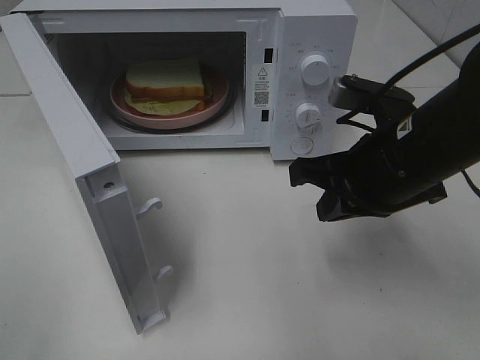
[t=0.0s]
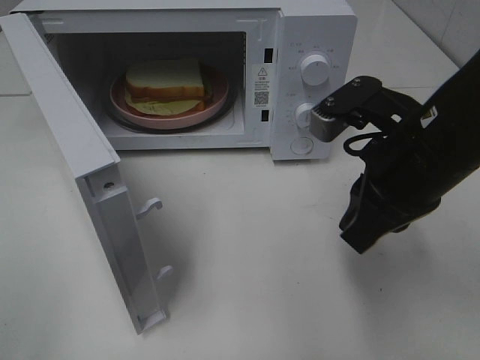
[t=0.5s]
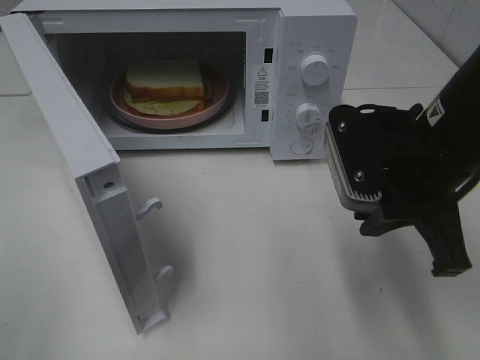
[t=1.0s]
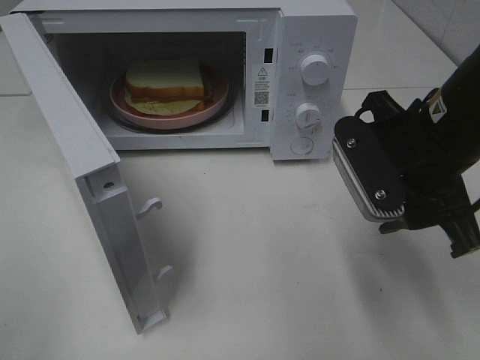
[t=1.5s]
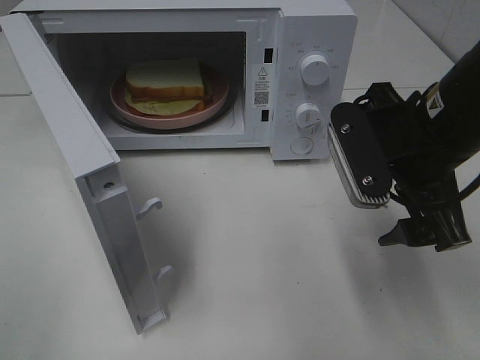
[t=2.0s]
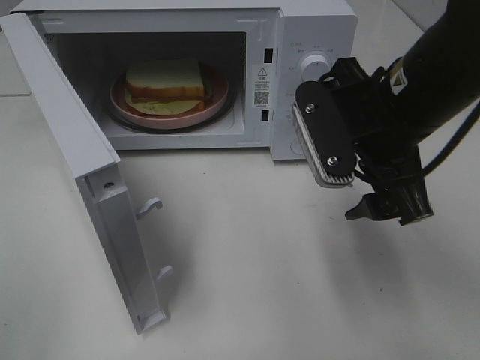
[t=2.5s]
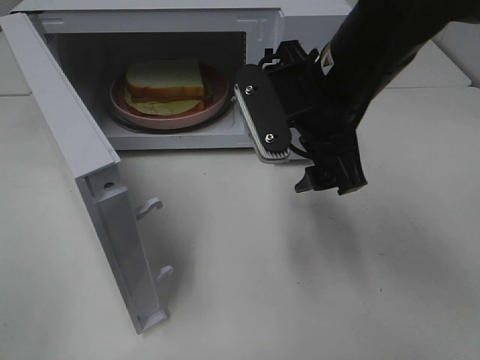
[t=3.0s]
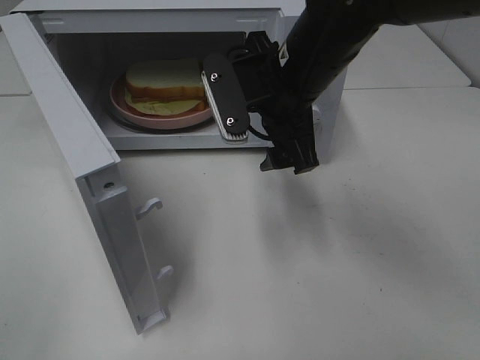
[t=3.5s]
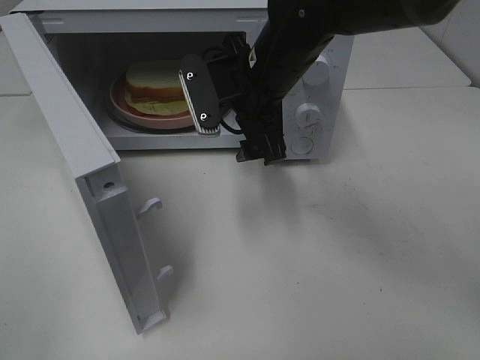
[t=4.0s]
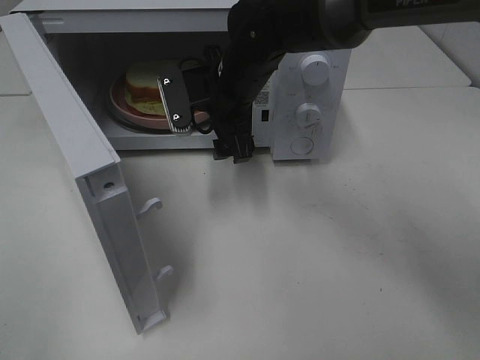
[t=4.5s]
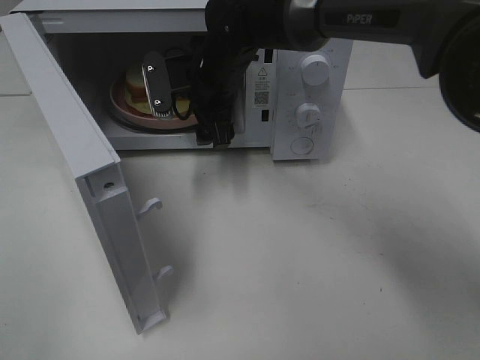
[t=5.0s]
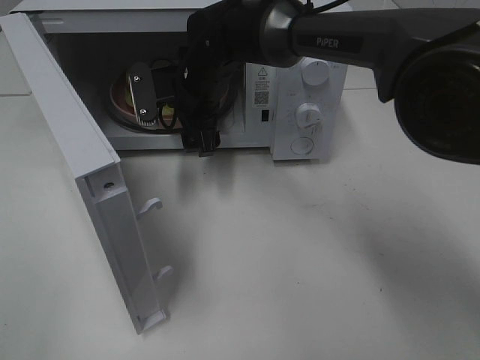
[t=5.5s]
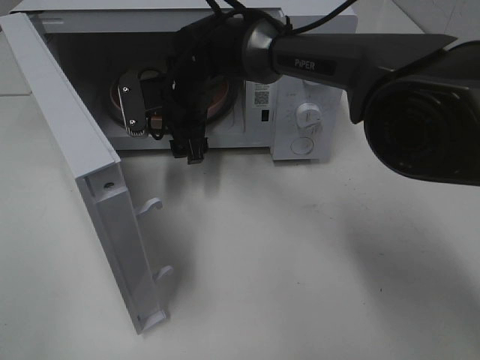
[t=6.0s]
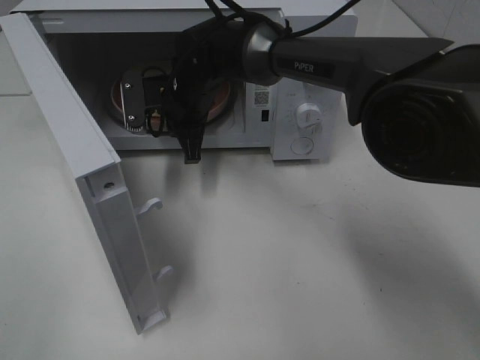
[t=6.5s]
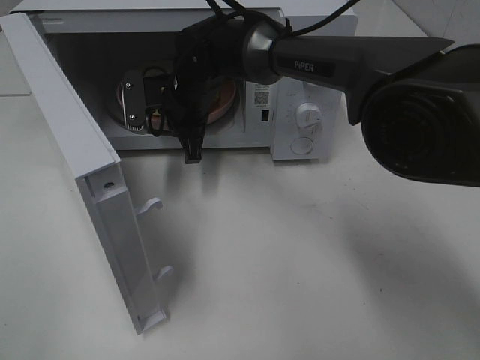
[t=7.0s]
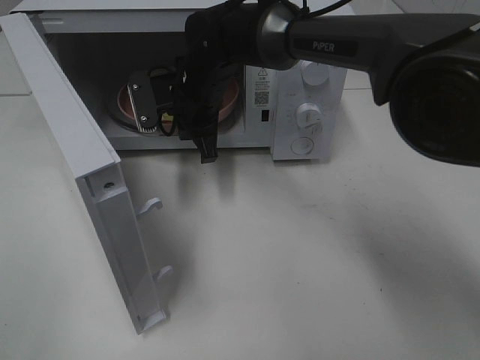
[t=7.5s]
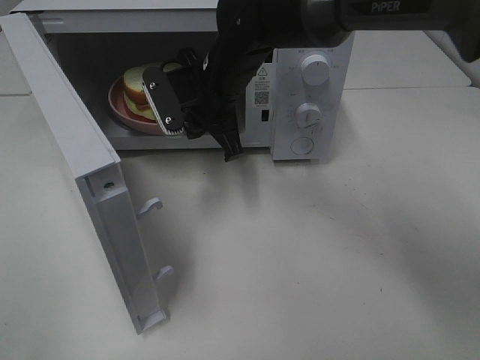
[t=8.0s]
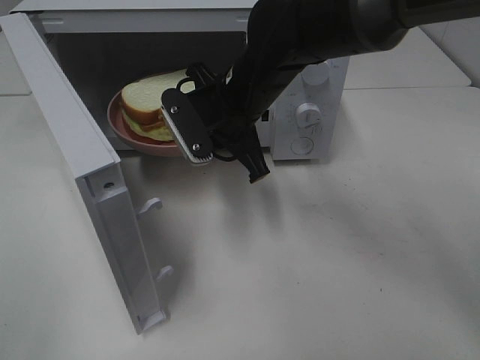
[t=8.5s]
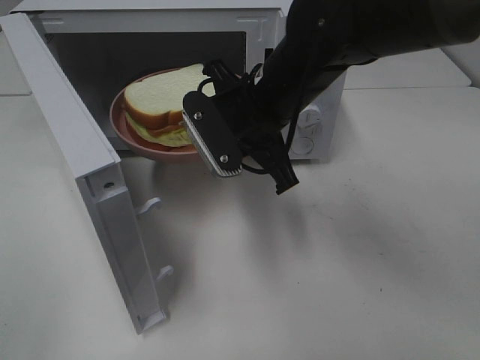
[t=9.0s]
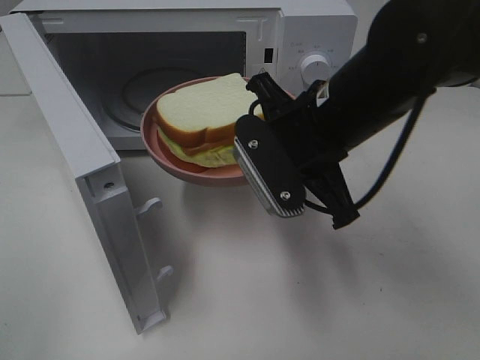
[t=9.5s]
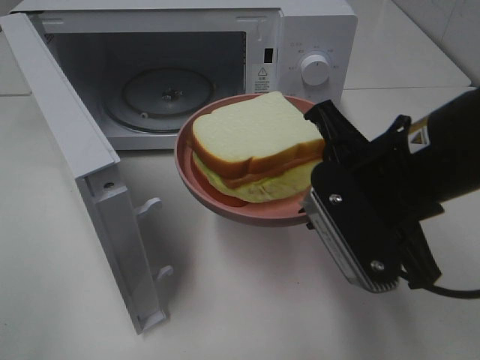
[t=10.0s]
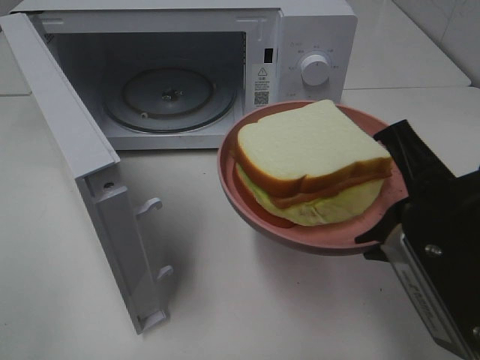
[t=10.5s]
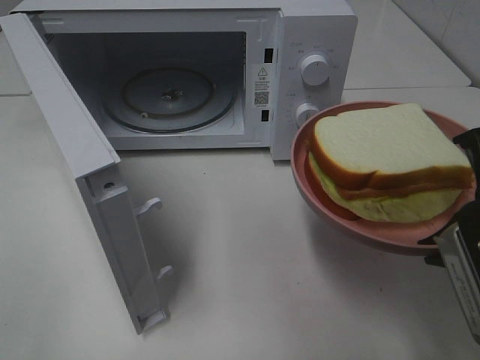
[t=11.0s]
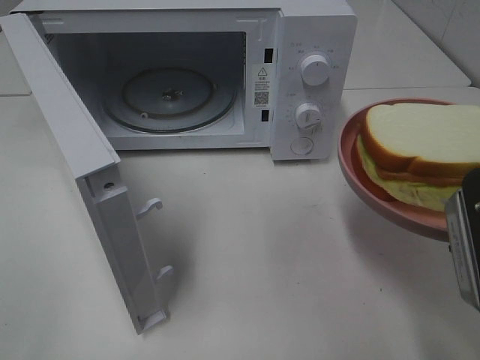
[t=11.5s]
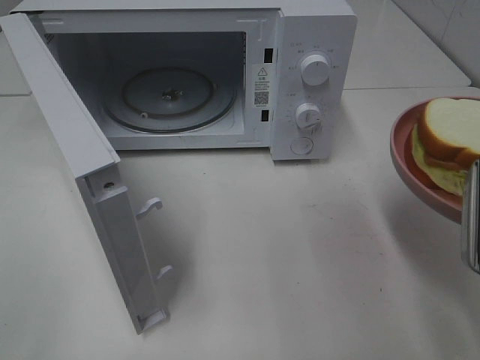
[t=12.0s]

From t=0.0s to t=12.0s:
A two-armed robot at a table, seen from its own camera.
Task of the whole recording: Heat Sandwich.
Step, from t=0.0s to t=7.0s: Right hand: grab the plate with the sandwich.
From t=0.0s to t=2.0s: The right gripper opens.
From t=2.0s to t=4.0s: The right gripper goes approximately 20 cm to the left and forward.
From t=4.0s to t=6.0s: The right gripper goes approximately 15 cm to the left, forward and downward.
From t=6.0s to t=8.0s: The right gripper changes place by approximately 5 cm, and closes up.
From t=8.0s to t=10.0s: The right gripper moves backward and to the right, some 25 cm.
From t=10.0s to t=12.0s: The right gripper travels to the right and backward by about 10 cm.

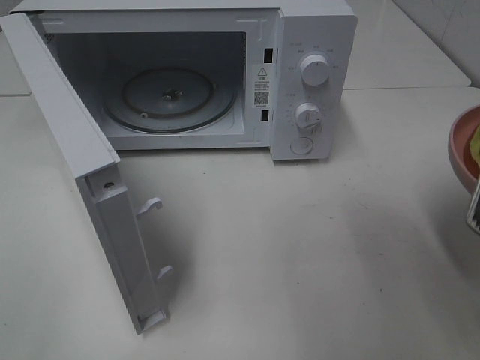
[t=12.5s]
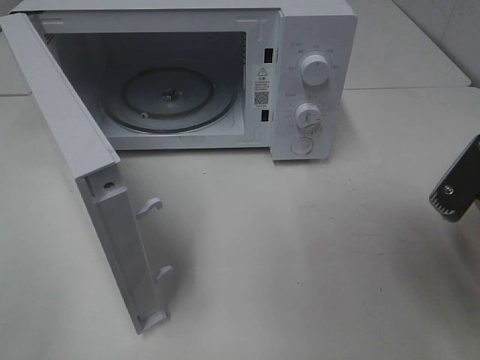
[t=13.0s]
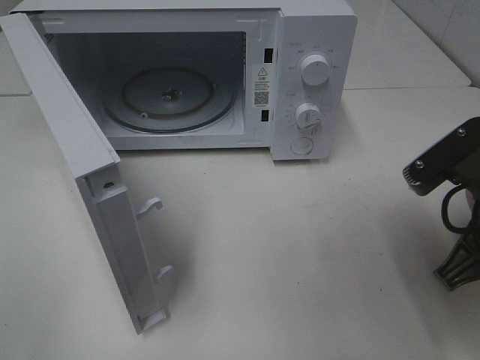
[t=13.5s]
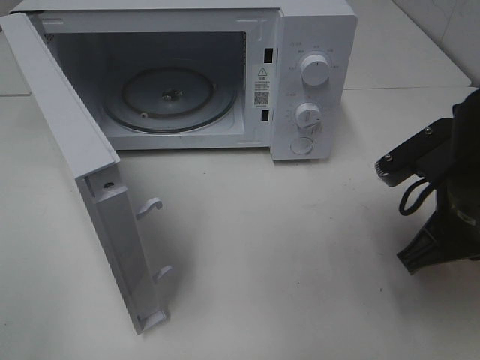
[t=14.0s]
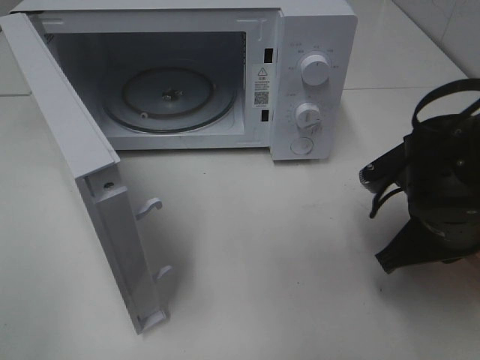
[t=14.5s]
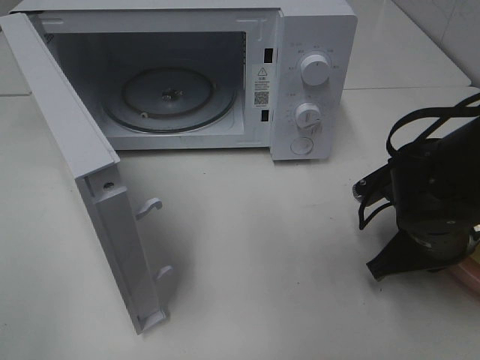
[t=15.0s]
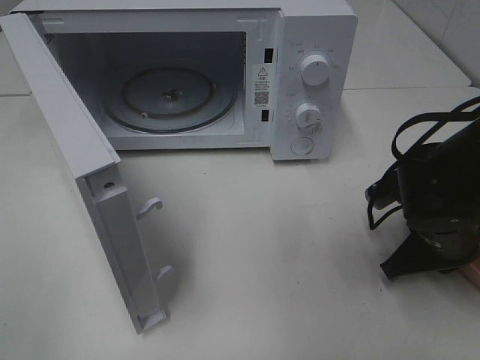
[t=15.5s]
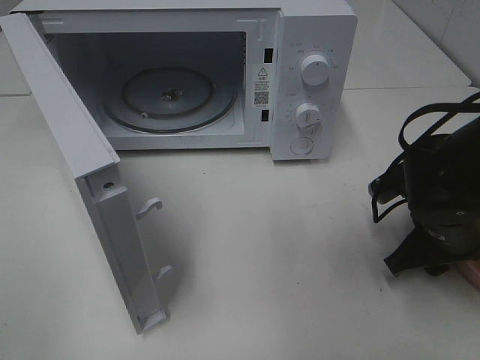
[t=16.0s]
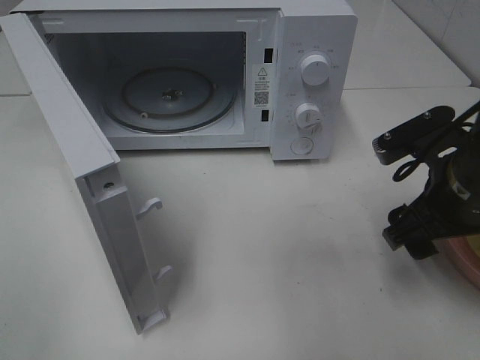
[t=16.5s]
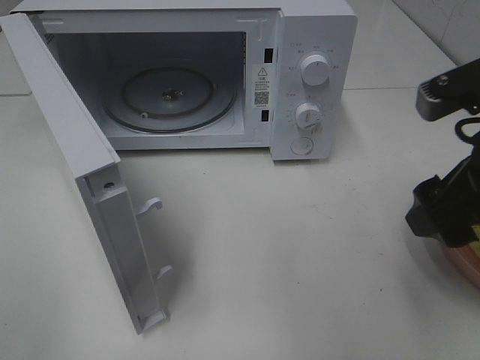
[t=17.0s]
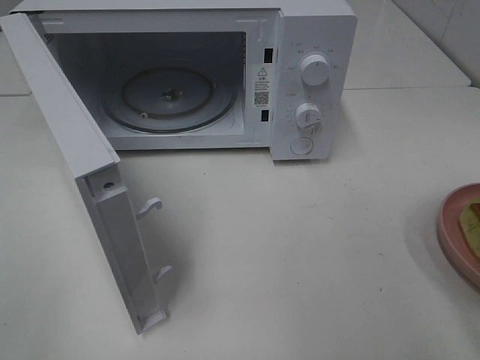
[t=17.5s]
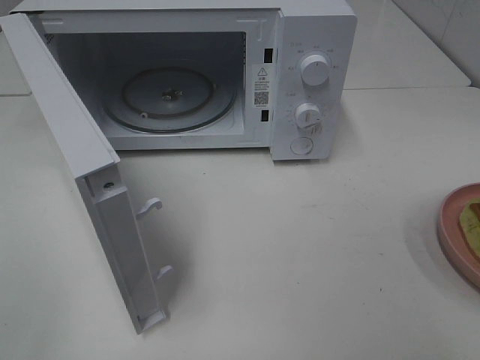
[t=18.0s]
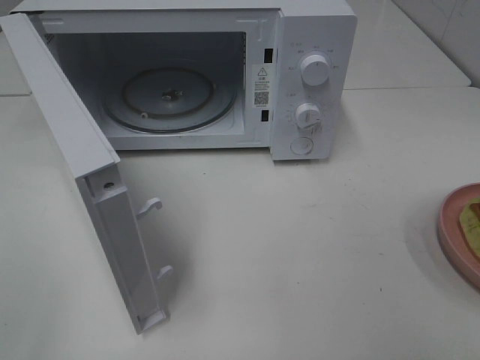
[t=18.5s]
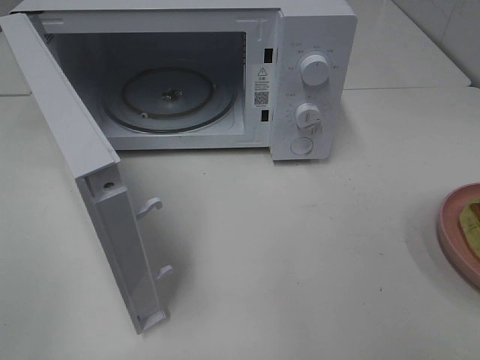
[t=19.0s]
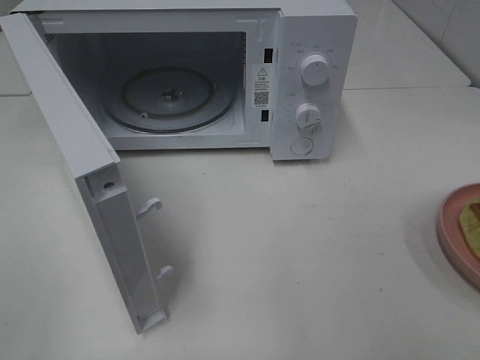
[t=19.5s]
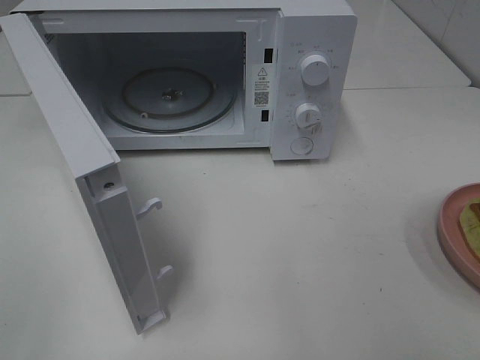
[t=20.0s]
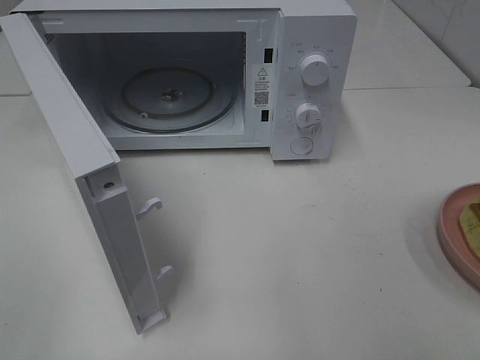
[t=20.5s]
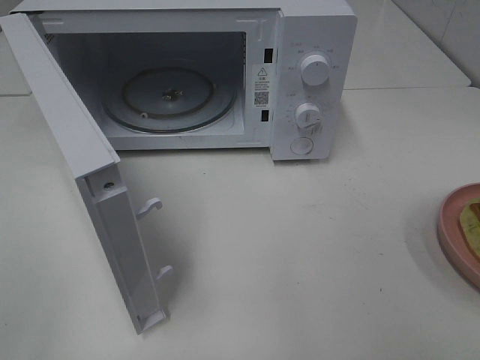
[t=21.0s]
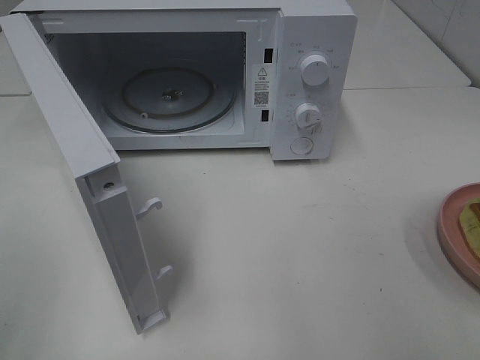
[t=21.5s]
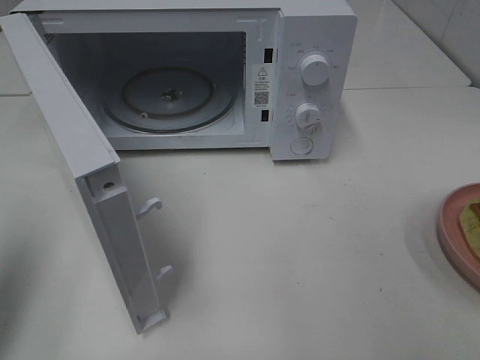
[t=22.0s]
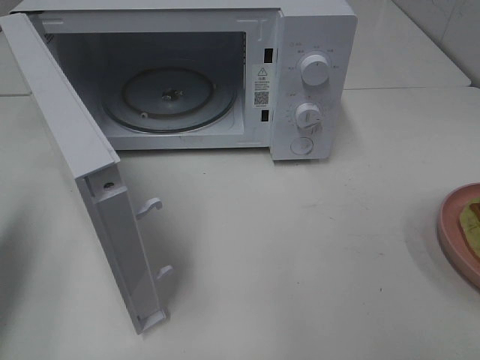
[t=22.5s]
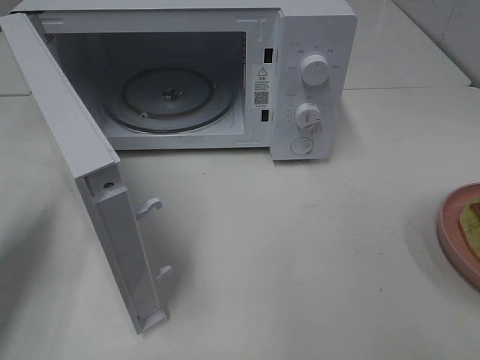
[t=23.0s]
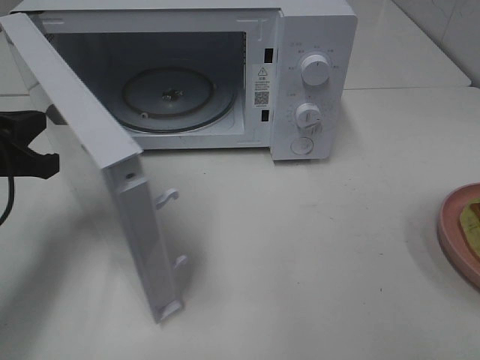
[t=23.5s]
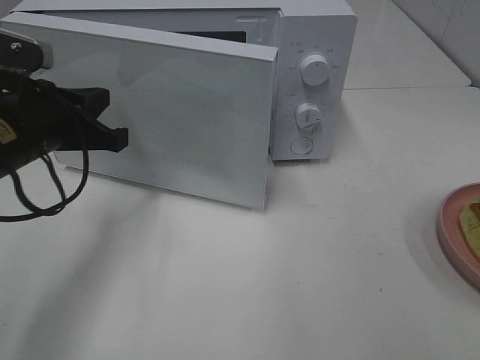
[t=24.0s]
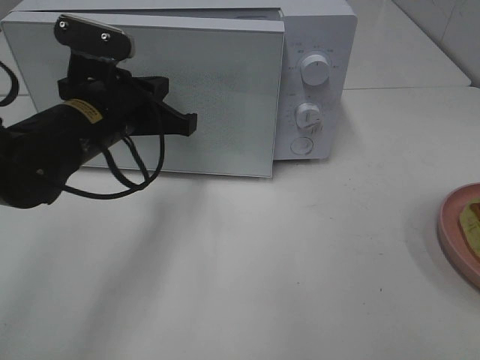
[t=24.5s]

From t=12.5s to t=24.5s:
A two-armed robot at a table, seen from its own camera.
Task of the whole recording: Heat Sandwich.
Step, from t=12.5s to t=16.5s: Right hand: place the plate on the table.
From t=12.5s to t=14.5s: The right gripper travels downward and forward by roughly 15 cm.
From t=14.5s to t=16.5s: The right gripper opens up.
From t=16.5s to t=18.5s: The right gripper heads backward, upward and to the right, covering roughly 30 cm.
From t=20.5s to t=22.5s: The left gripper shifts approximately 20 cm forward, and closes.
From t=22.5s to t=24.5s: The left gripper shifts some 25 cm to the right and forward.

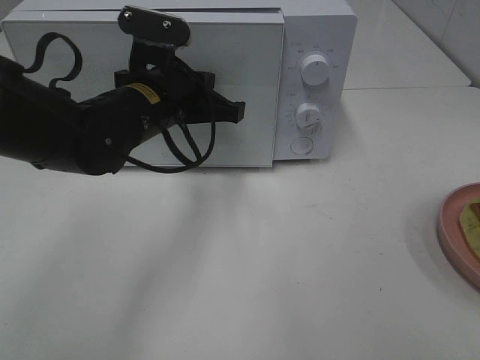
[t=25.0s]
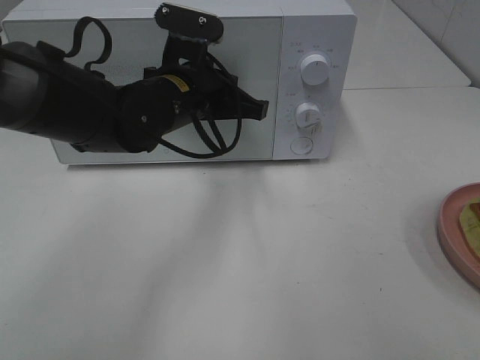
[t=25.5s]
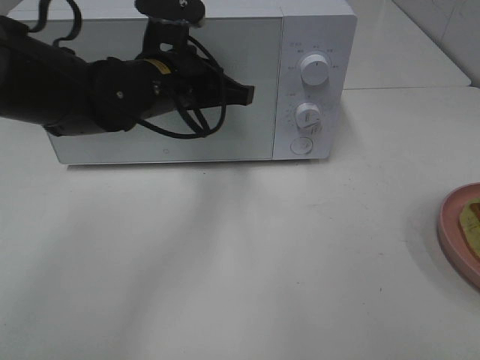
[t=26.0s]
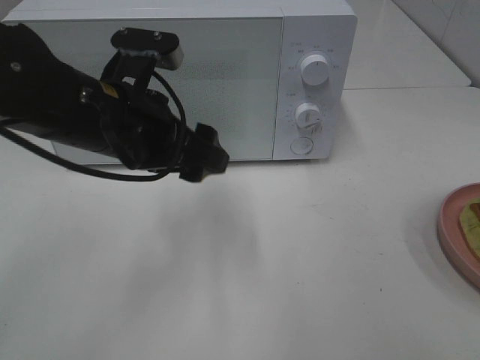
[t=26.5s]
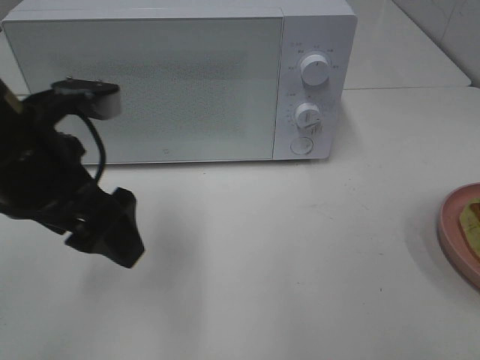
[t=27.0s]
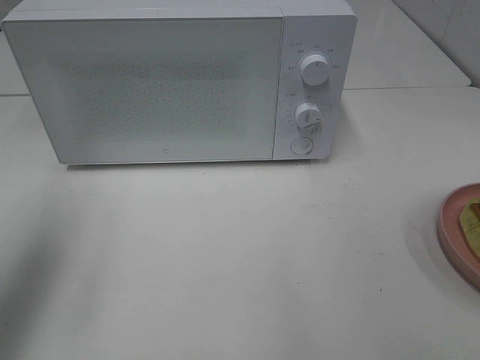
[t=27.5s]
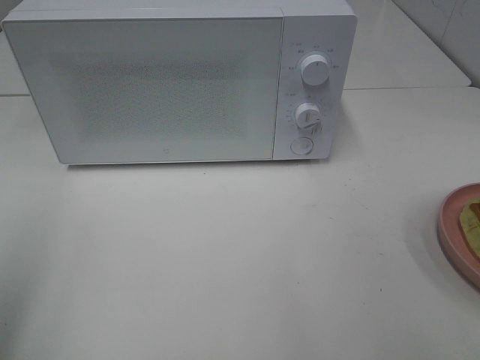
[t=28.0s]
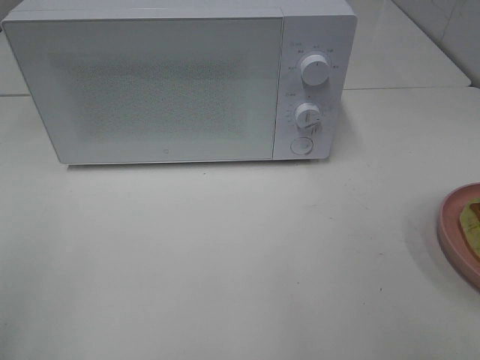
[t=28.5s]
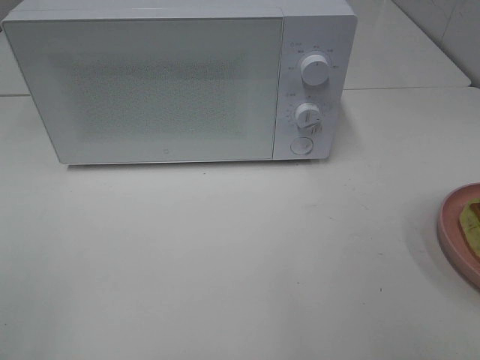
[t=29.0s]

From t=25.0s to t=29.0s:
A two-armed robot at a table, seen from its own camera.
Task of the whole recording: Heat Sandwich.
From t=25.0s to t=27.0s: The left gripper travels backward, to the left and upward by approximately 15 cm, and opens up.
From t=27.0s to t=29.0s: The left gripper shifts roughly 25 cm backward and to the left.
